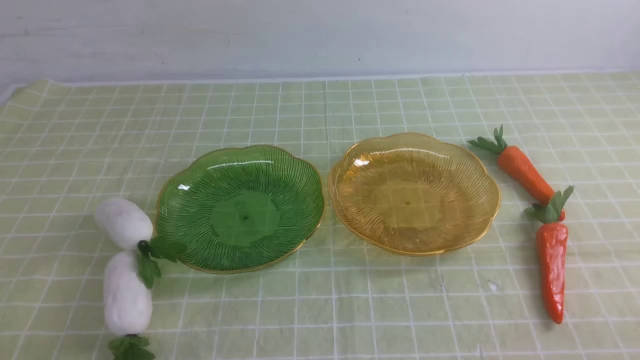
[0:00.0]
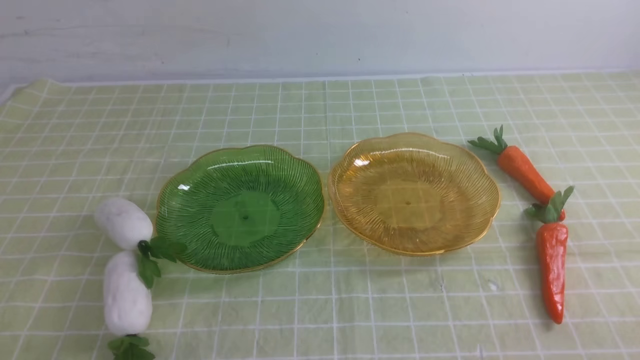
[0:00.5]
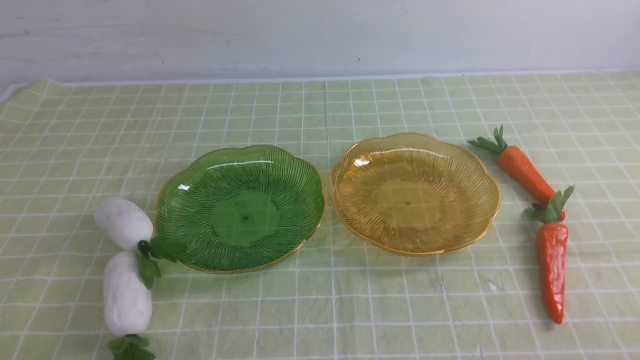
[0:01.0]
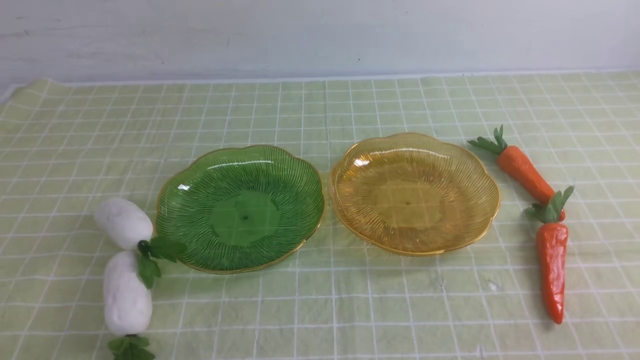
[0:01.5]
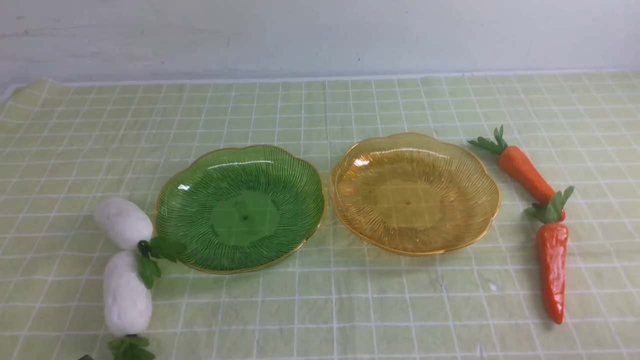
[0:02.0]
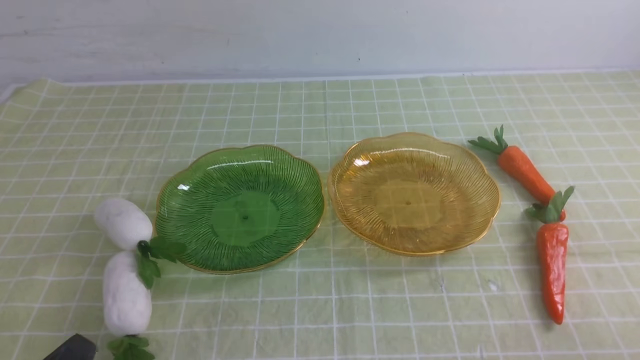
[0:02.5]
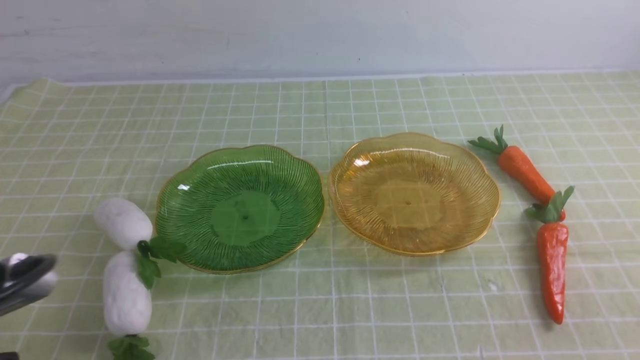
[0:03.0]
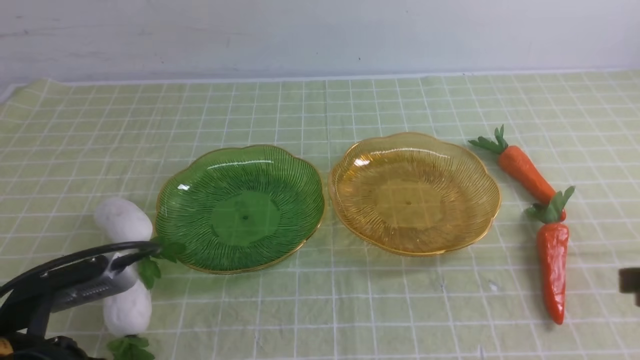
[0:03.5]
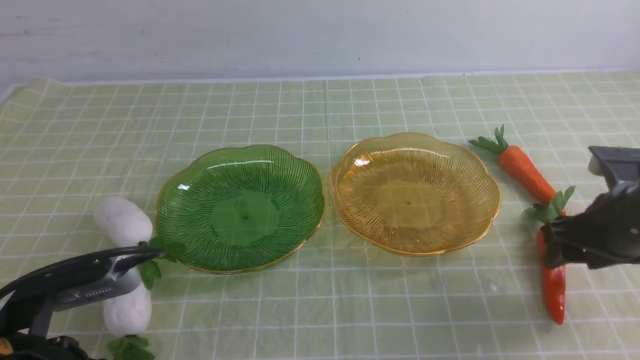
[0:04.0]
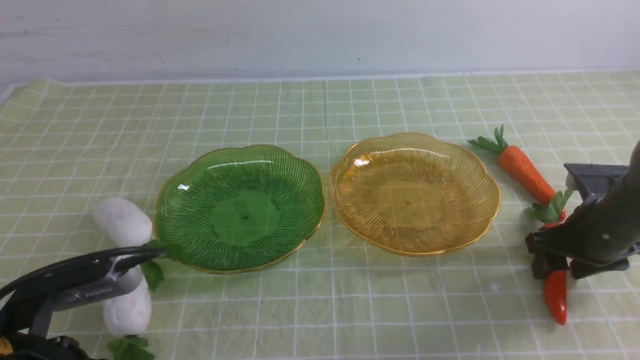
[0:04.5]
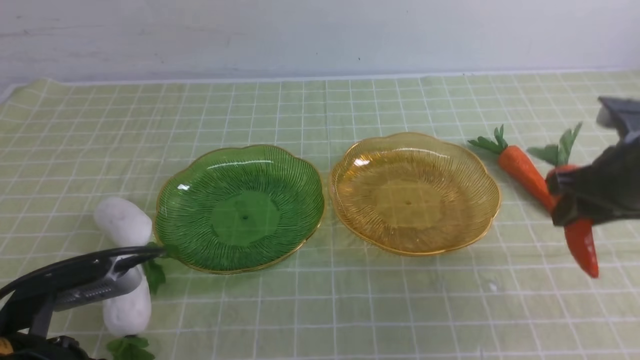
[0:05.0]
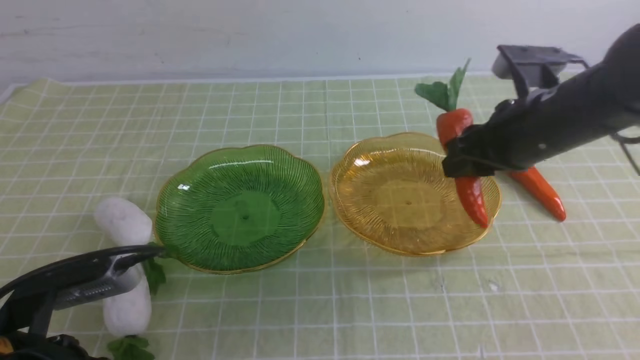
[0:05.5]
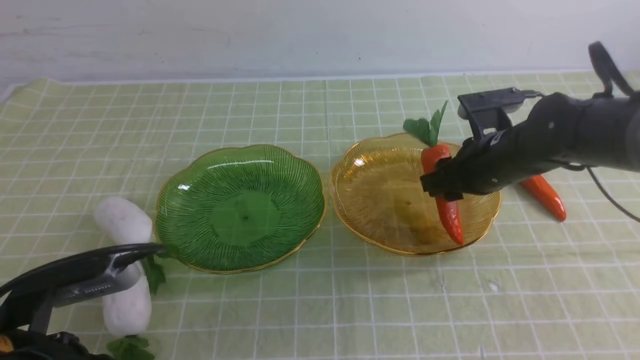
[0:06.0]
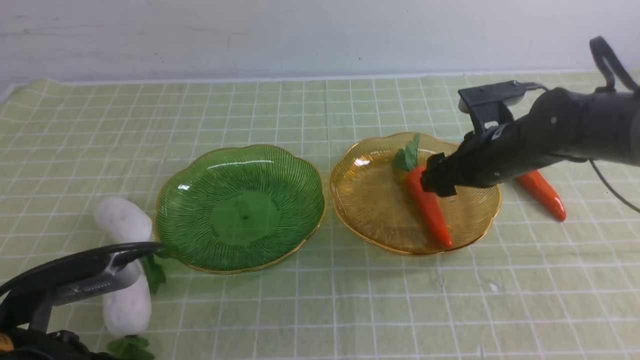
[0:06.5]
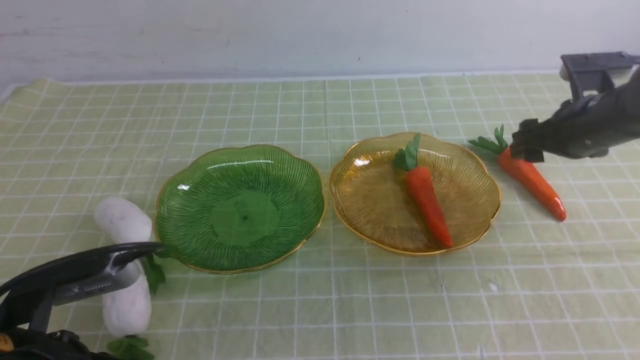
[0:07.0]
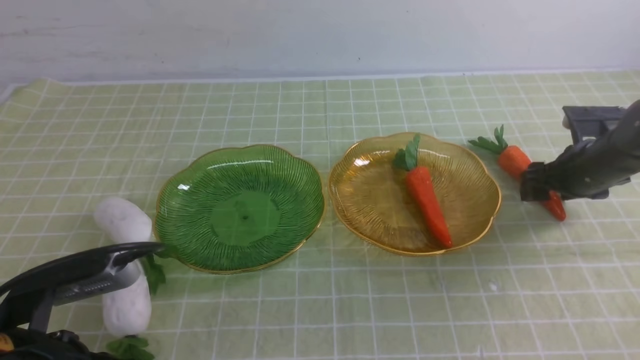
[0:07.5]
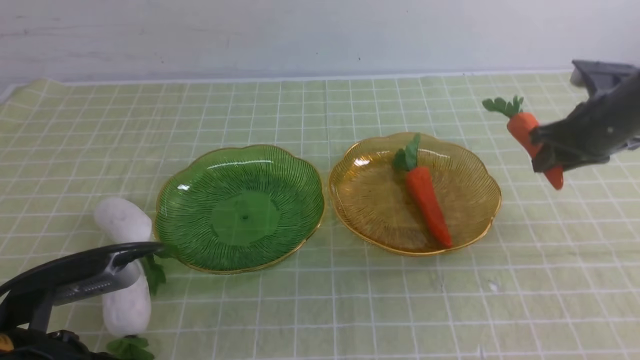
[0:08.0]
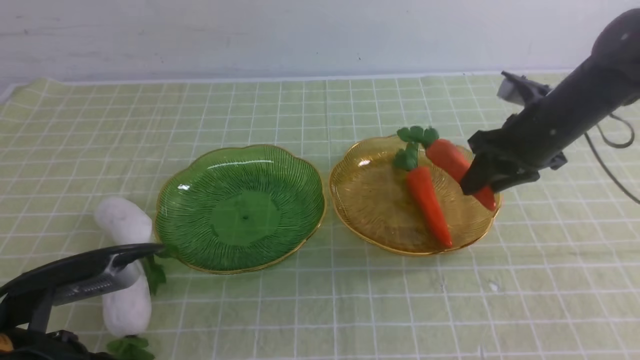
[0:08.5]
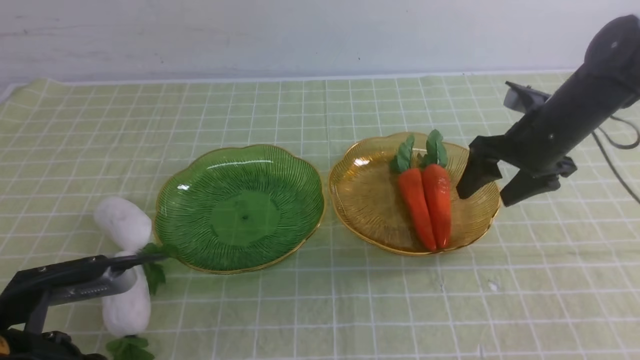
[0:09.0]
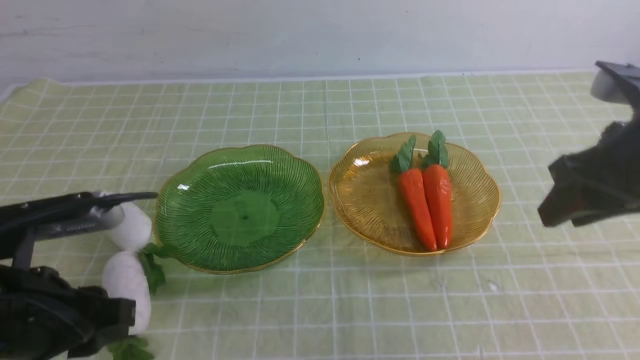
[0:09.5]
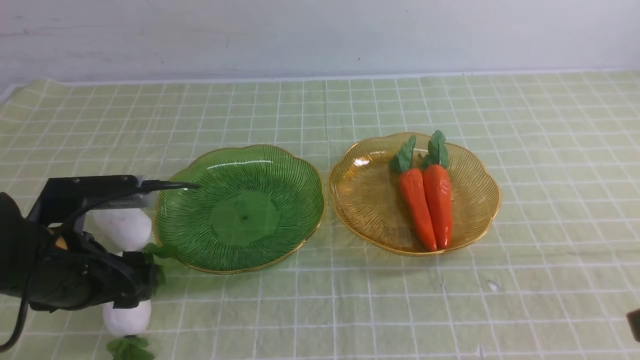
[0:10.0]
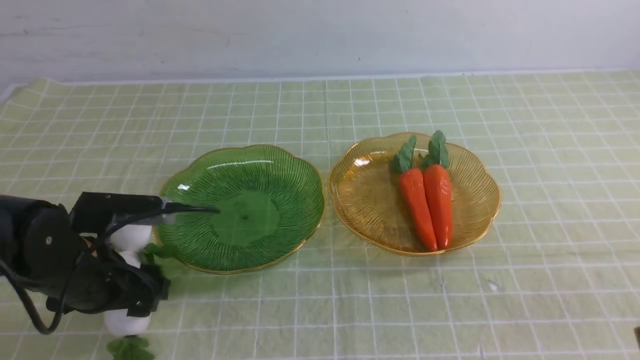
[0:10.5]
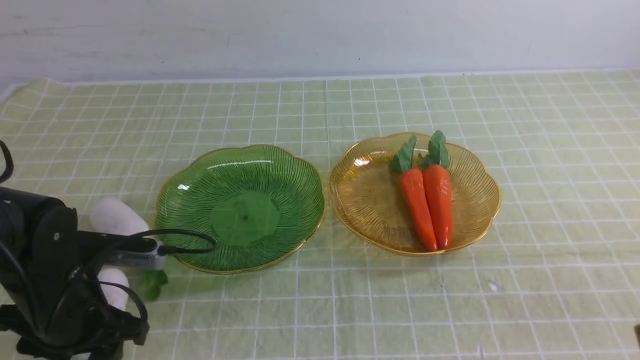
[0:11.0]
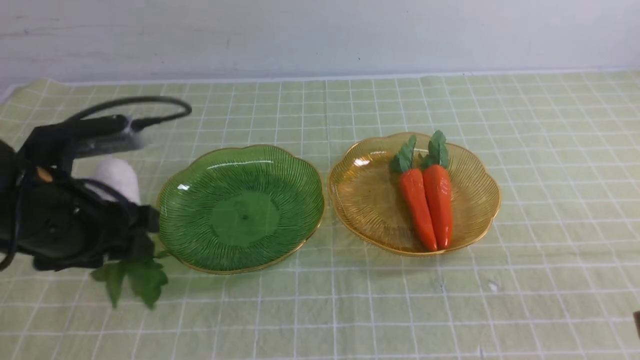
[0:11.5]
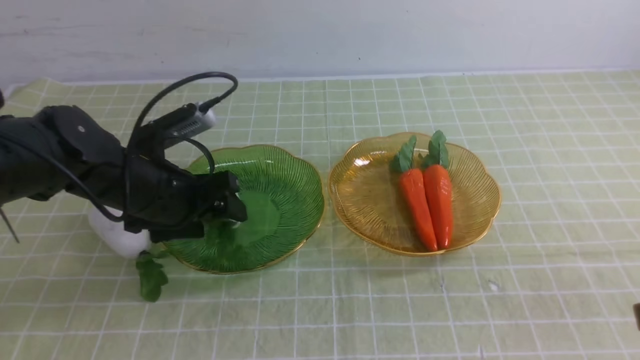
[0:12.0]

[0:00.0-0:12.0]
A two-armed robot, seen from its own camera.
Step, 0:00.0 to 0:08.5: use the right arm to grab a carrot and put it into the right plate.
0:02.0 to 0:04.0: The left gripper goes some 10 cm forward and upward. Meanwhile the right gripper travels forward by roughly 25 cm, and opens up.
0:04.0 to 0:06.0: The right gripper moves up and down over roughly 10 cm, changing direction 2 times.
0:06.0 to 0:08.0: The right gripper shifts about 10 cm to the right, and opens and closes again.
0:08.0 to 0:10.0: The right gripper moves backward and upward, approximately 30 cm, and opens, then closes once more, while the left gripper goes some 10 cm forward, and opens its fingers.
0:10.0 to 0:12.0: The left gripper goes approximately 10 cm forward.

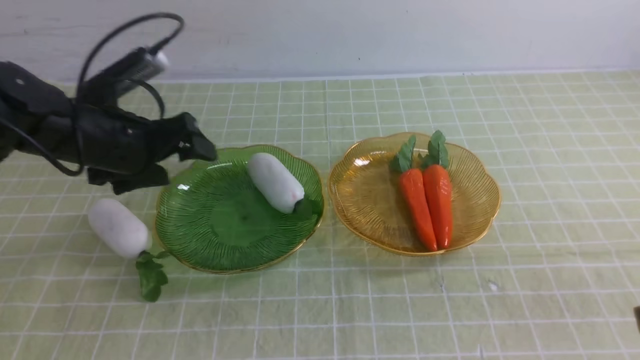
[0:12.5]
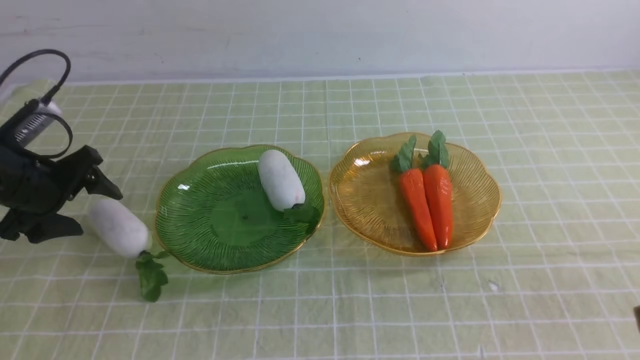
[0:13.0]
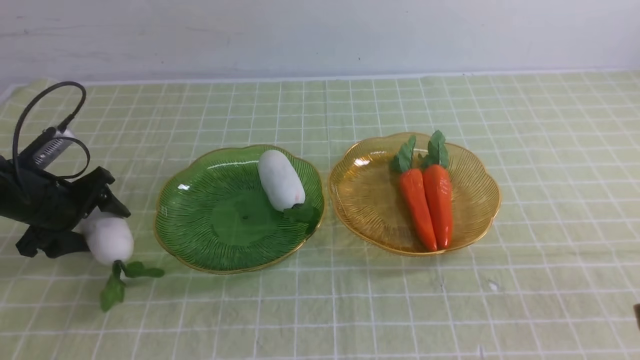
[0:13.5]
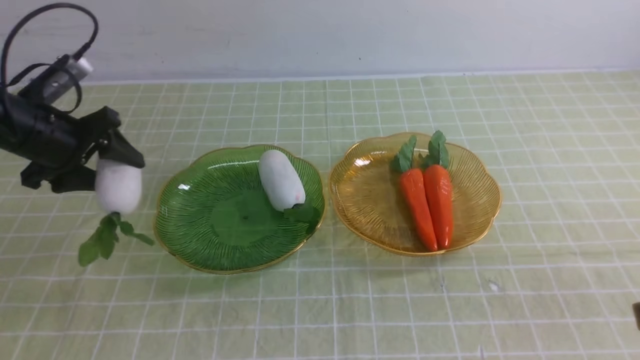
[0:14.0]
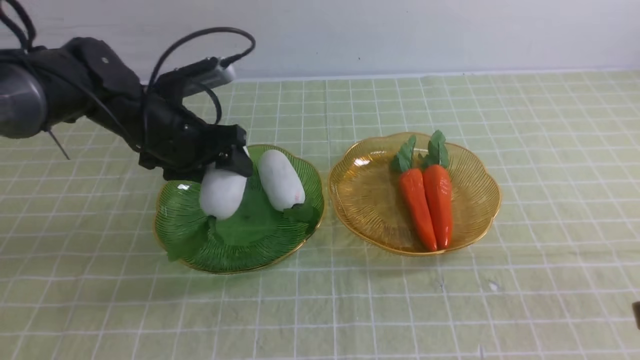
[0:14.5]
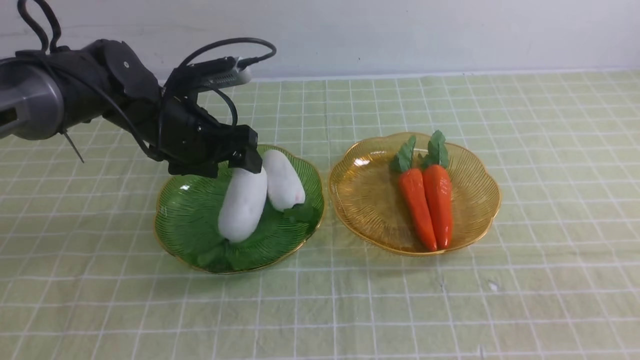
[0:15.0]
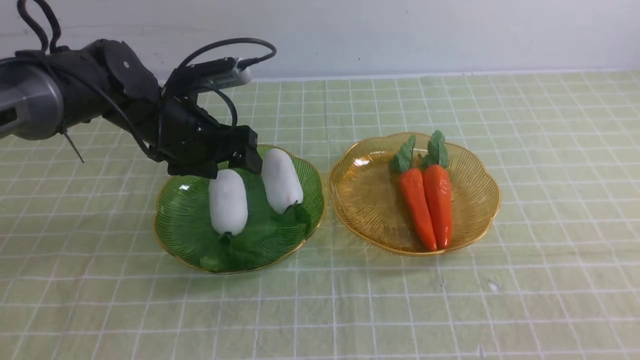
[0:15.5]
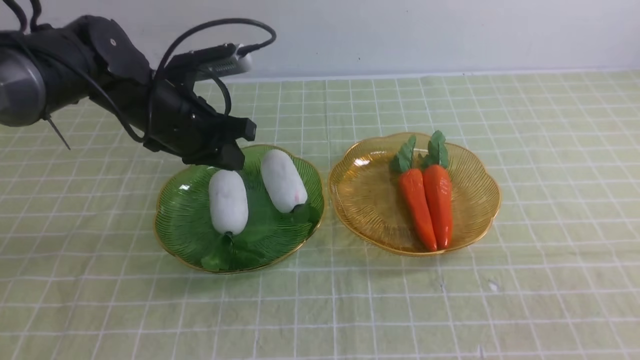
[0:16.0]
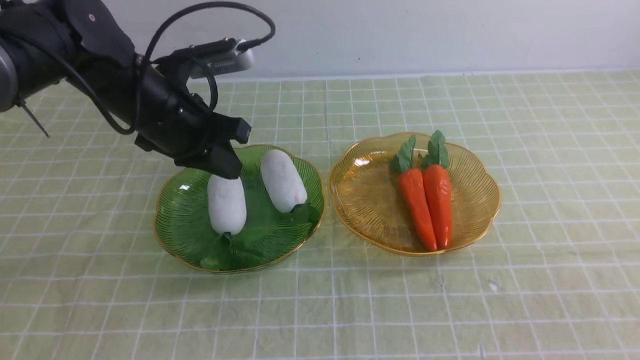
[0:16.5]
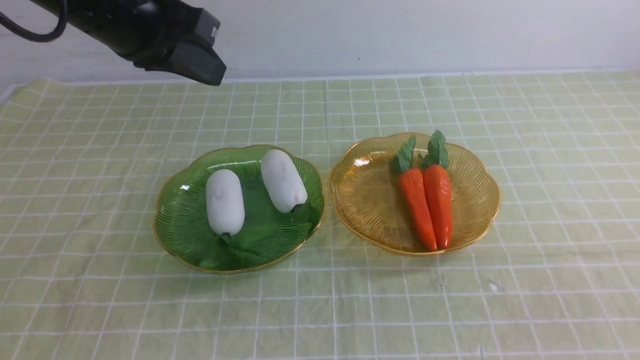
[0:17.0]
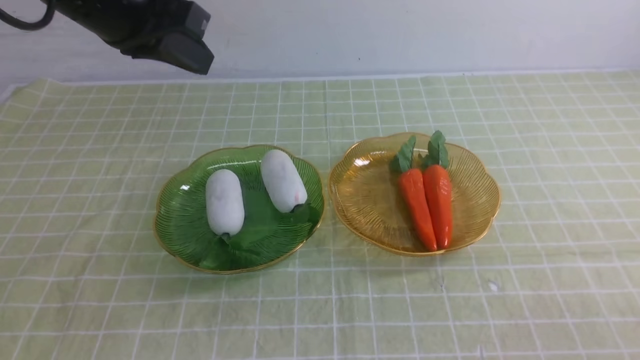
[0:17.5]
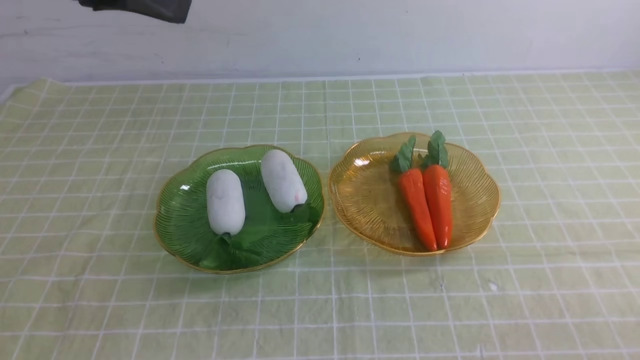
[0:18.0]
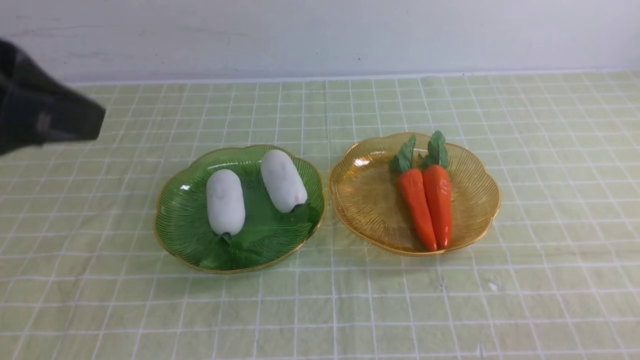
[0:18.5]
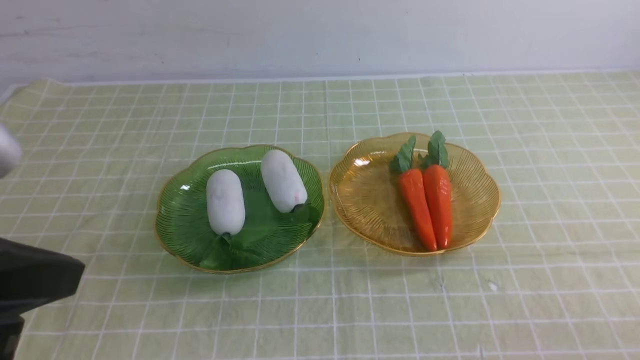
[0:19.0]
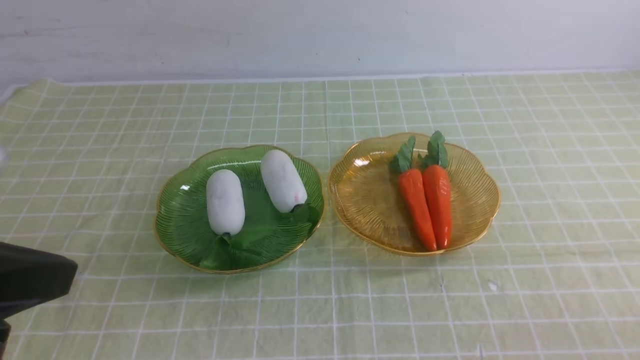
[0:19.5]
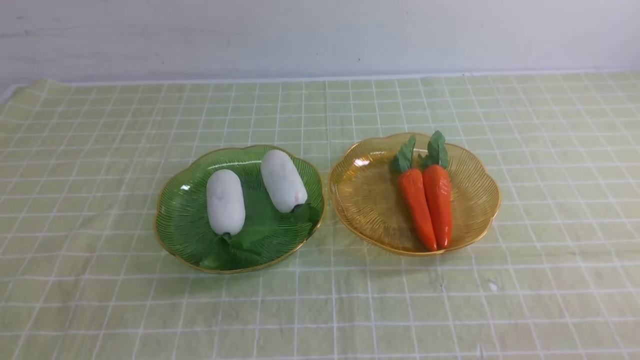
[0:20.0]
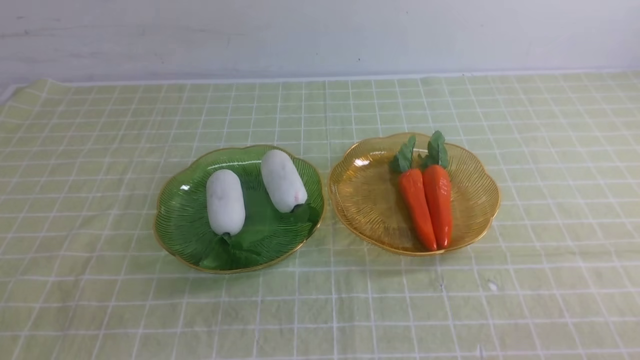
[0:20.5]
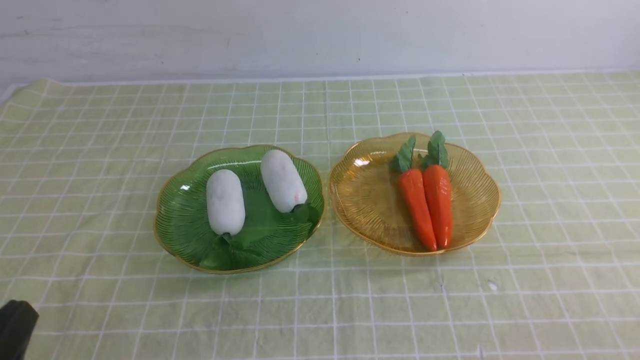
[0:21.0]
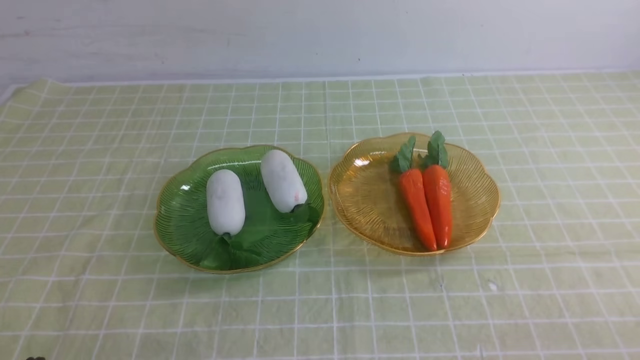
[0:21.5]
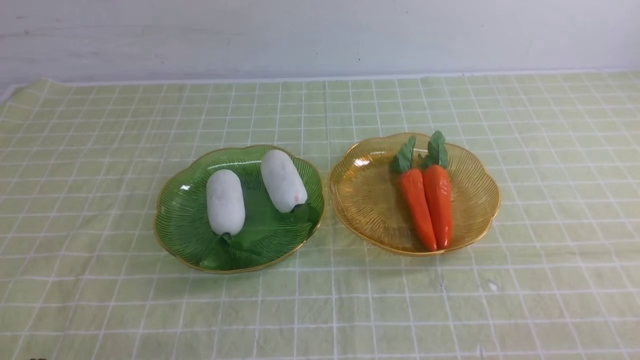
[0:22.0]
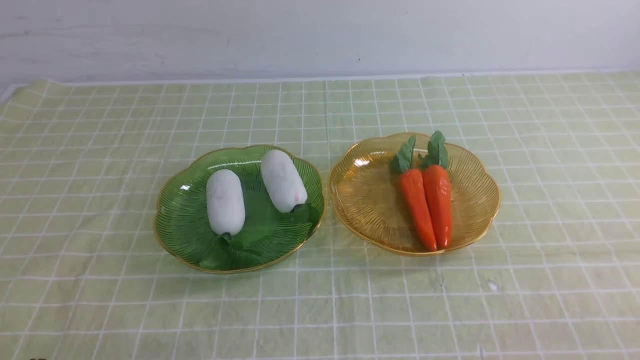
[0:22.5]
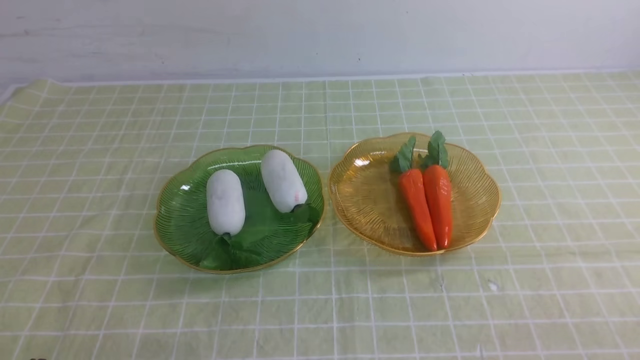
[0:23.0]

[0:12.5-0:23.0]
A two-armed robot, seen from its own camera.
Step, 0:13.0 to 0:15.0: use the left arm to grab a radish and put it into the left plate.
0:12.5 to 0:14.5: The left gripper travels to the left and back again, roughly 15 cm each way.
0:14.5 to 0:16.5: The left gripper heads upward, covering approximately 5 cm, and closes up. The right gripper goes roughly 5 cm backward.
0:16.5 to 0:19.0: The right gripper is displaced downward by some 10 cm, while the left gripper travels backward by about 25 cm.
0:19.0 to 0:21.0: The left gripper travels downward by approximately 15 cm.
0:21.0 to 0:23.0: The left gripper shifts about 5 cm downward.
